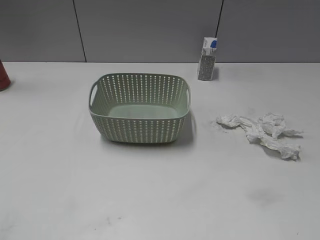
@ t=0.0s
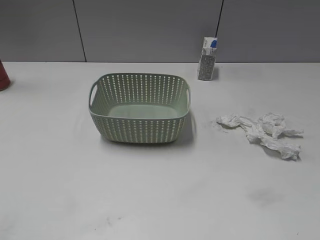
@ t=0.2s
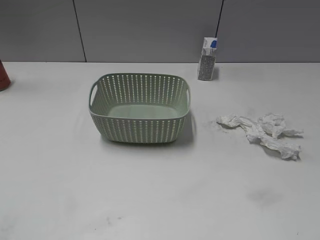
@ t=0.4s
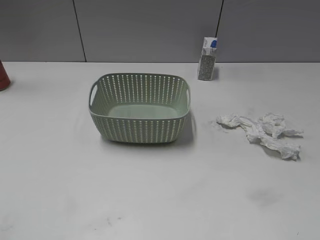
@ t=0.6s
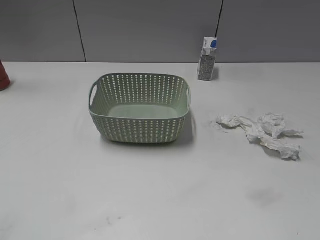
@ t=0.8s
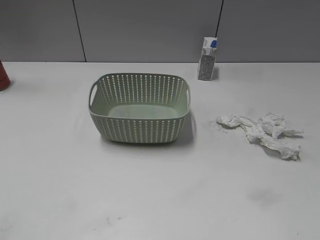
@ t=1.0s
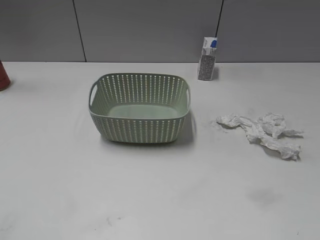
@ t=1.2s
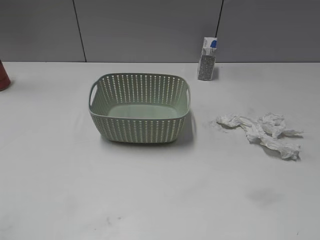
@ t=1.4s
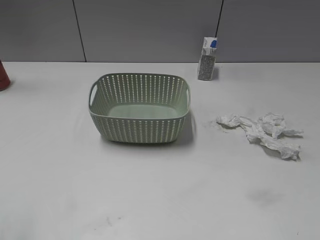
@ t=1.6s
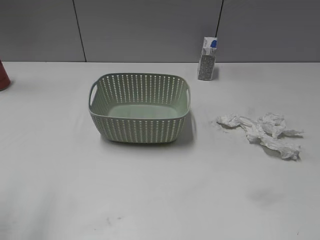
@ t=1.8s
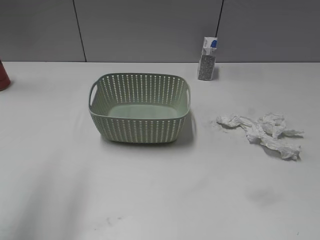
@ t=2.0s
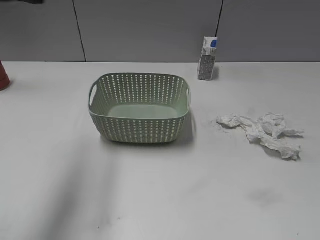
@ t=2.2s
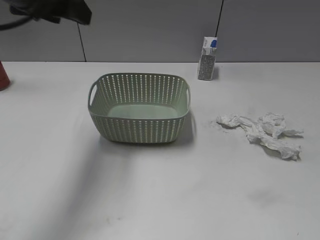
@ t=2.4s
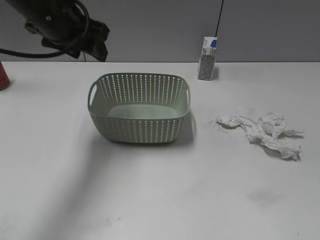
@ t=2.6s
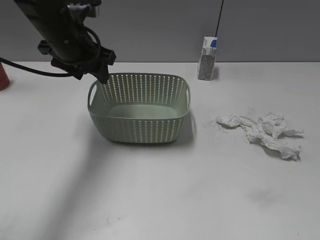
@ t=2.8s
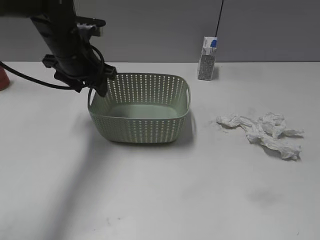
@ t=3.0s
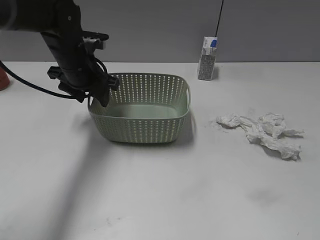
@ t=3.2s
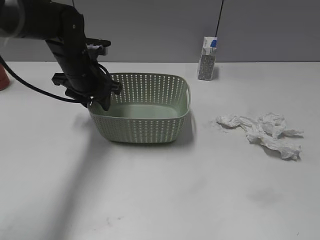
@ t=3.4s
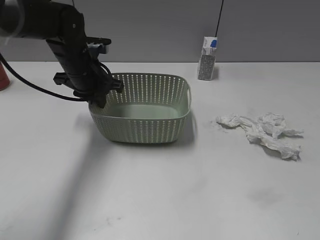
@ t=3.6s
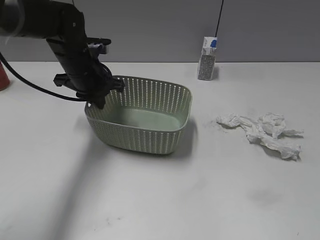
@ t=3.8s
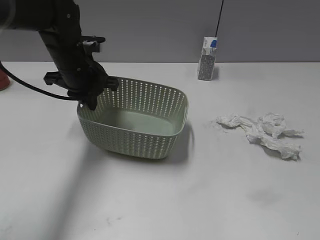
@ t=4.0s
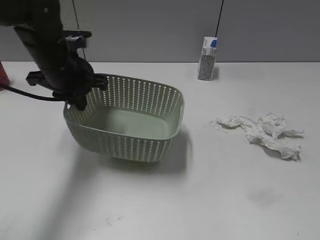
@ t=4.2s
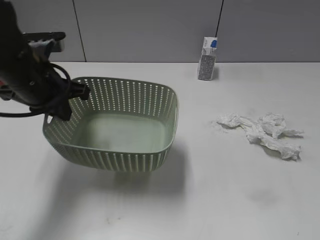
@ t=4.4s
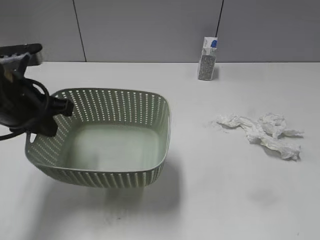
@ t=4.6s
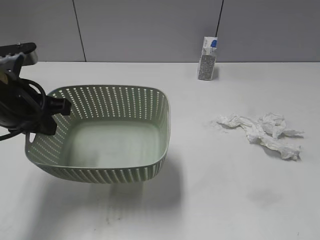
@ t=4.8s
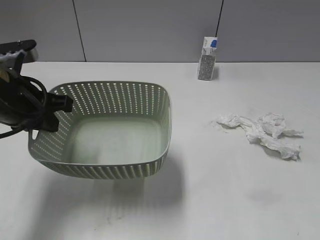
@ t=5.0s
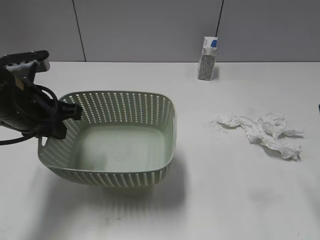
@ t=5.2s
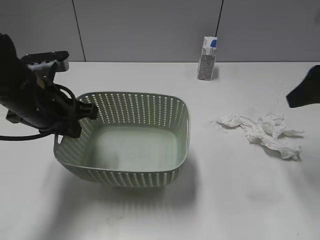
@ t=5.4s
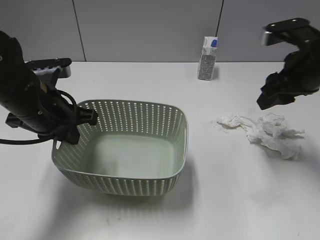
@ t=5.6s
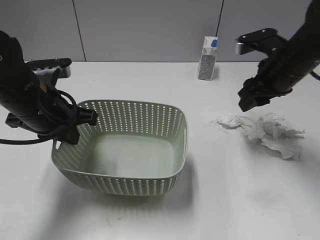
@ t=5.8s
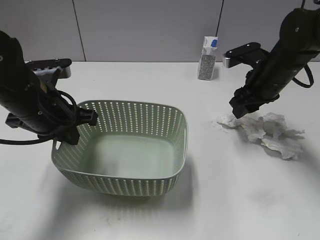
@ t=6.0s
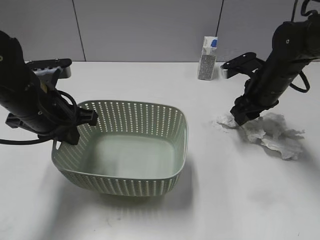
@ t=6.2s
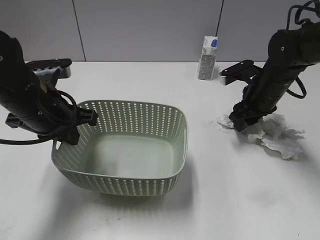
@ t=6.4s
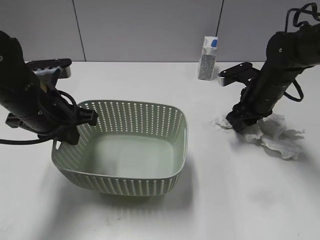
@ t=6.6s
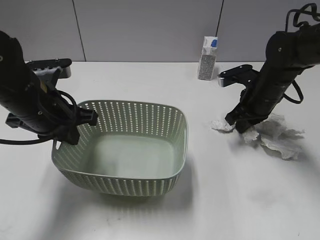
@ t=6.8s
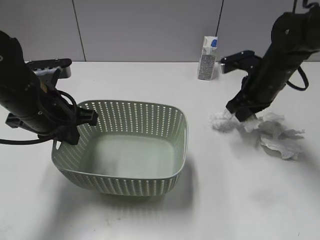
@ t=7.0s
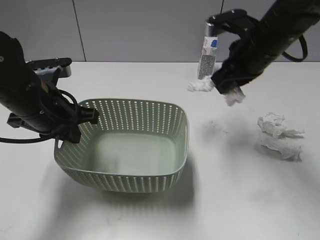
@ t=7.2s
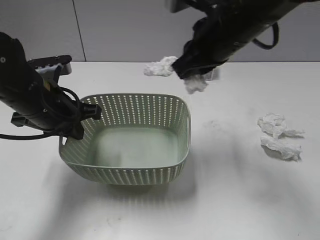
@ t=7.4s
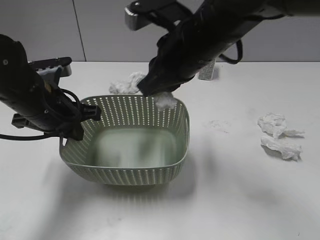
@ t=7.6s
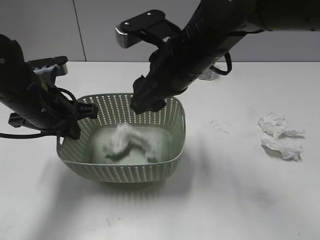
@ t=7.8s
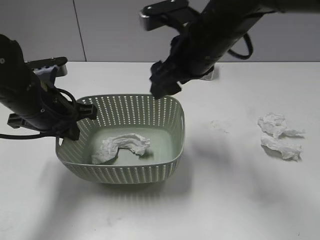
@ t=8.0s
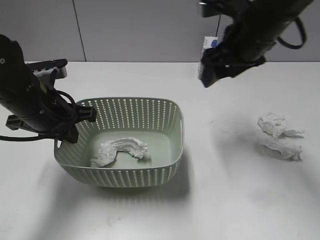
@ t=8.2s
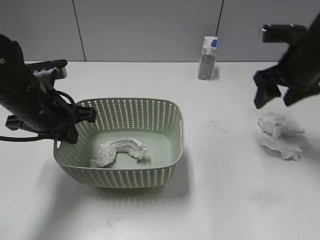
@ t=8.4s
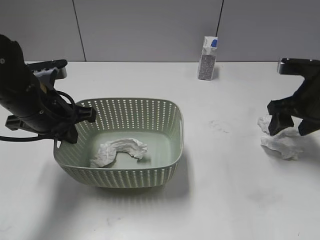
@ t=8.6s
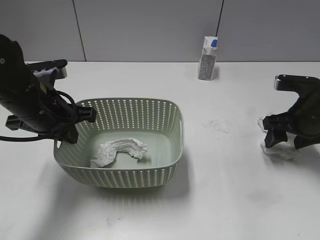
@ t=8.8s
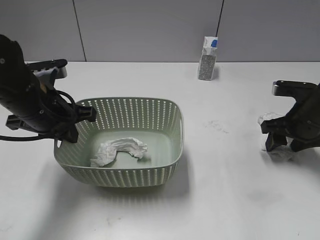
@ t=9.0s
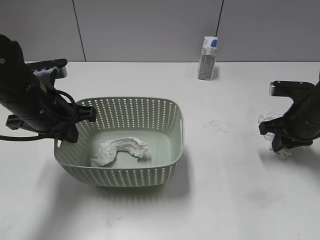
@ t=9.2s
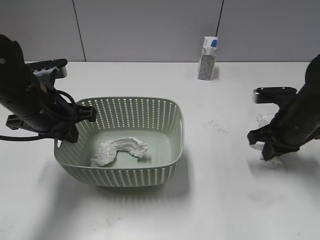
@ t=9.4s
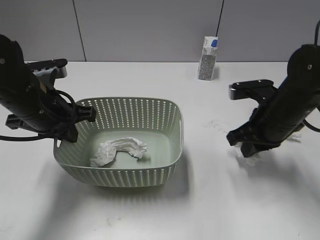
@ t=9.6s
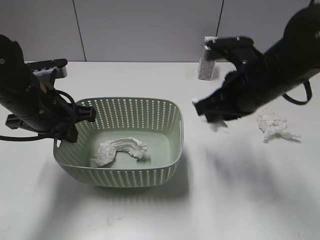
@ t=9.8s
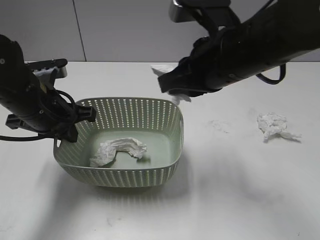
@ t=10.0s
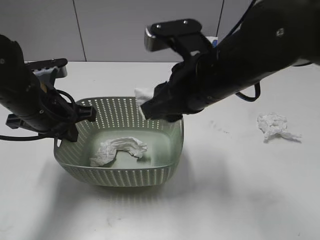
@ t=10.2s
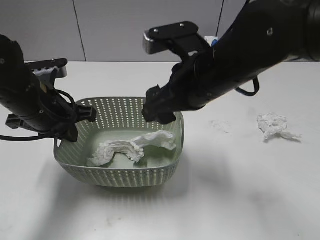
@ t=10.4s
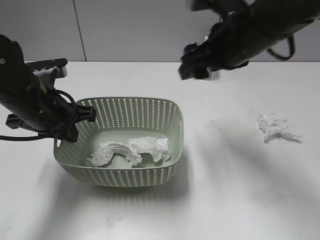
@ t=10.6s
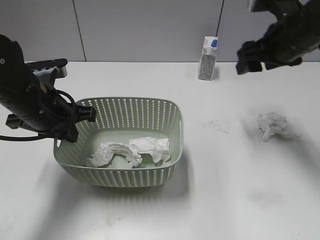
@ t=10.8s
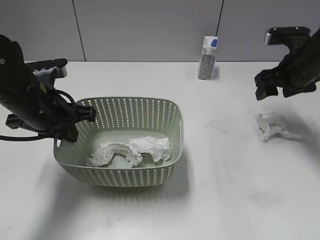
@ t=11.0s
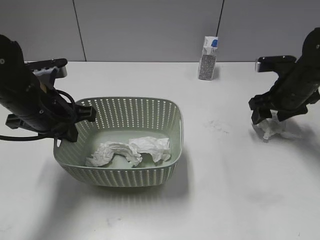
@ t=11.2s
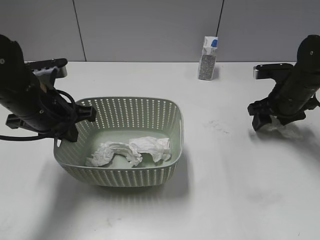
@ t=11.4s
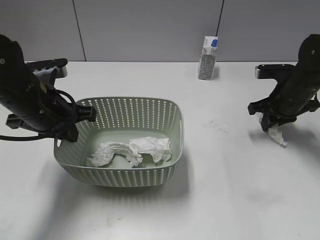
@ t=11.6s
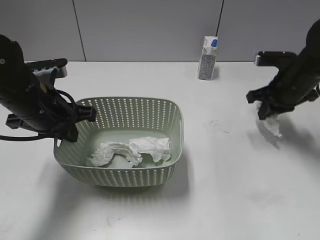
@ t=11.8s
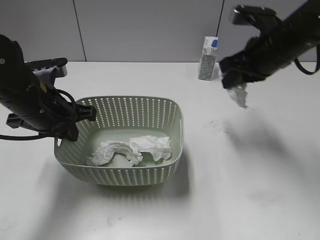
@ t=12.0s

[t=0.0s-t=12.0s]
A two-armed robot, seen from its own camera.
Step, t=2.2s to t=3.8s: Grasp the basket with left gripper.
Step, t=4.0s to t=4.6s: Lift the basket with left gripper.
Step, t=4.8s to t=7.0s: Grasp the waste paper with right gripper.
Step, t=7.2s to t=7.8s: Place the waste paper in the basket with right gripper.
Step, t=8.0s to t=9.4s: Grasp the waste paper with right gripper.
Step, t=9.6s to t=10.4s: Place the waste paper in the basket with right gripper.
Step, t=10.6s to t=11.8s: Grasp the waste paper with right gripper.
t=1.6s to t=3.0s: The left gripper travels forward, to the right and downward by approximately 40 cm.
t=3.0s to t=4.4s: The left gripper heads backward, covering roughly 10 cm, and closes its fingers.
t=4.4s to t=6.0s: The right gripper is displaced forward by approximately 40 cm.
t=6.0s to t=7.6s: The right gripper goes roughly 20 cm to the left, upward and backward, and closes.
t=7.6s to t=9.0s: The right gripper is displaced to the right and downward by about 25 cm, and opens.
t=9.0s to t=10.4s: The right gripper travels to the left and upward by roughly 25 cm, and closes and opens again.
t=10.4s to t=12.0s: The right gripper is displaced to the right and forward by about 15 cm, and closes up.

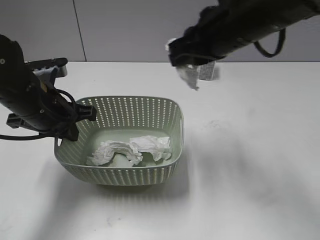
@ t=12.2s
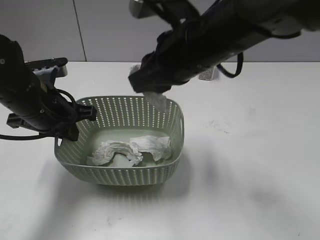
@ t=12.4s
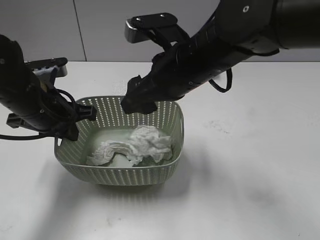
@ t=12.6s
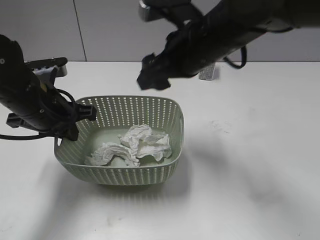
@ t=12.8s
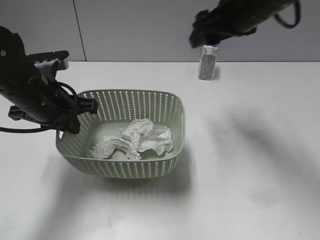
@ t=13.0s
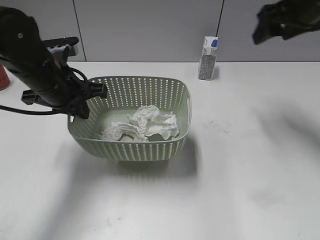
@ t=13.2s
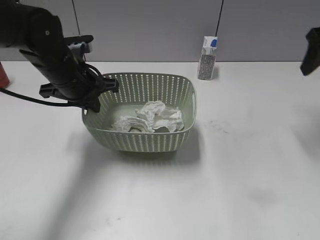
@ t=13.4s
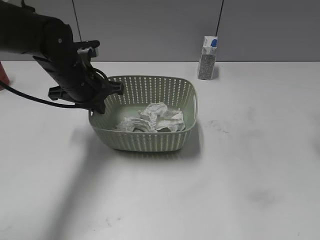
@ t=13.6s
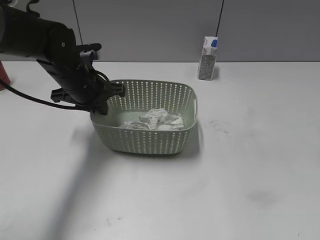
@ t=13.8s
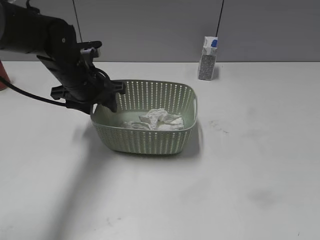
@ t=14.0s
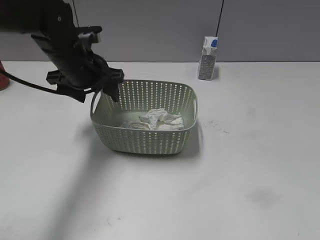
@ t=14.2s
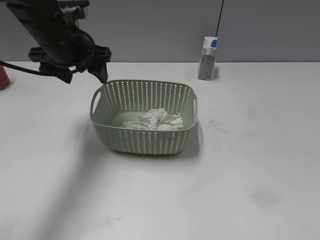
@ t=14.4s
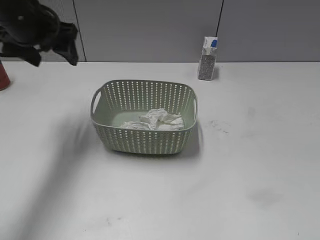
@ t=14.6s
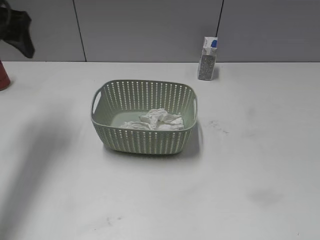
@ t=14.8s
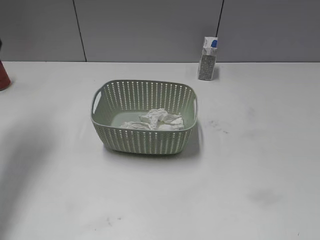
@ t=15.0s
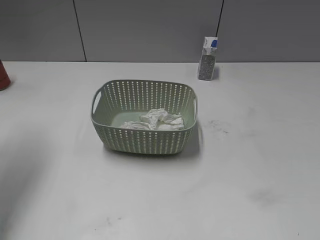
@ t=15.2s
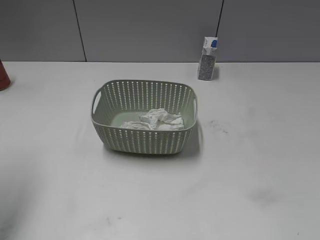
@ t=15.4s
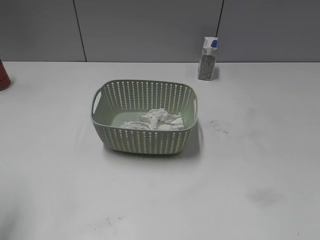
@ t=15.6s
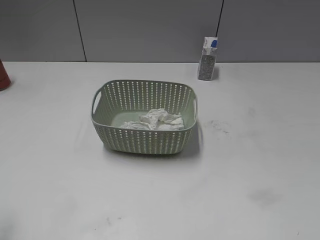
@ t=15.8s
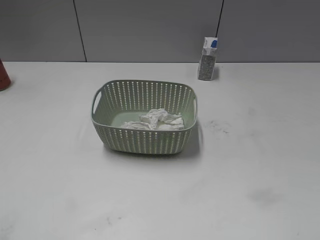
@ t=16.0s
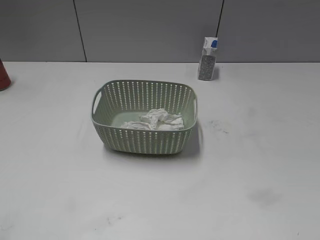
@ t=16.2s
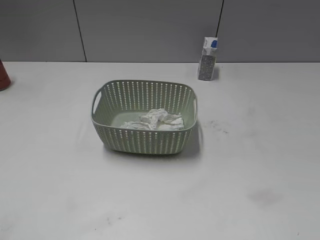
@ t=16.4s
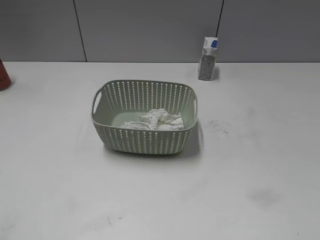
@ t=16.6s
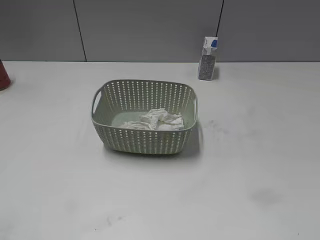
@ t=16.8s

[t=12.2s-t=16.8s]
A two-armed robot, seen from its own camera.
Step, t=12.2s to t=12.6s: Place the waste paper in the basket with right gripper.
Step, t=12.8s to t=14.0s: Place the basket on the table with left gripper.
t=12.2s to t=13.8s: The left gripper goes about 10 cm forward, while the right gripper goes about 20 cm to the right, and opens up.
t=13.8s to t=15.2s: The right gripper shifts roughly 30 cm backward; the left gripper goes approximately 25 cm upward and to the left, and opens its fingers.
t=15.2s to t=16.8s: The left gripper travels backward by about 30 cm.
